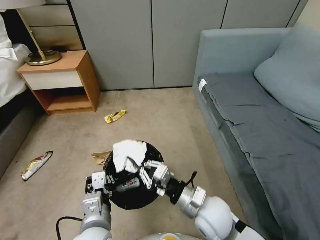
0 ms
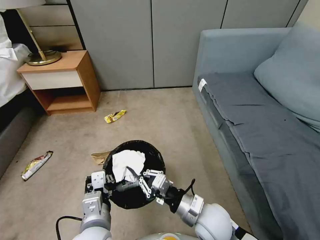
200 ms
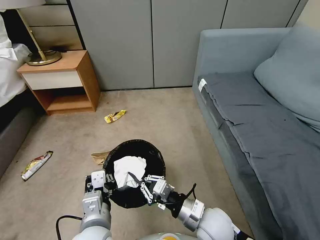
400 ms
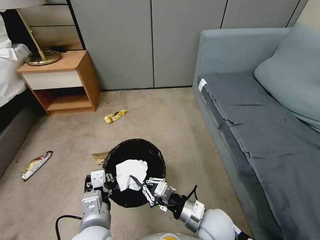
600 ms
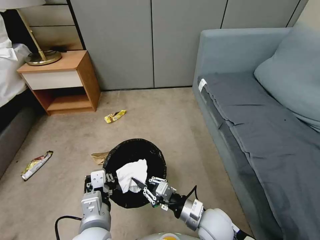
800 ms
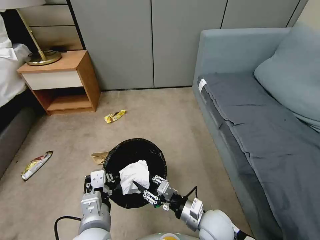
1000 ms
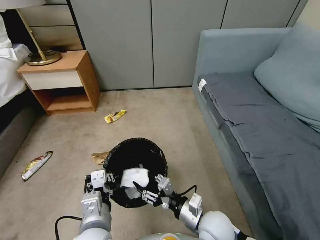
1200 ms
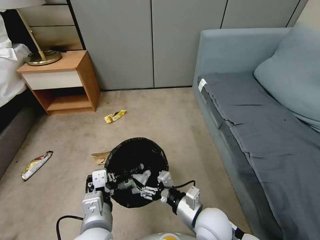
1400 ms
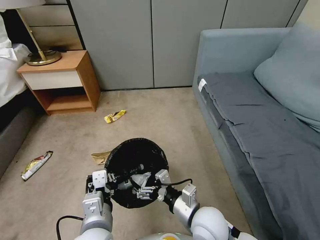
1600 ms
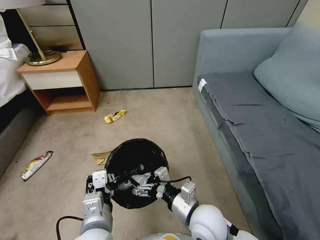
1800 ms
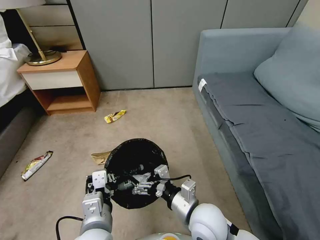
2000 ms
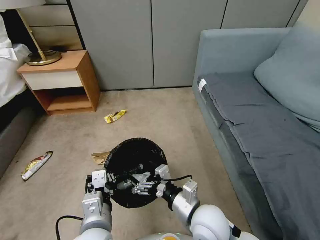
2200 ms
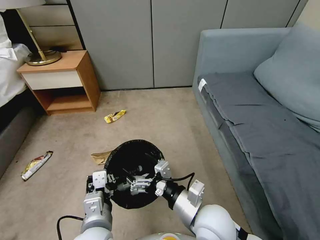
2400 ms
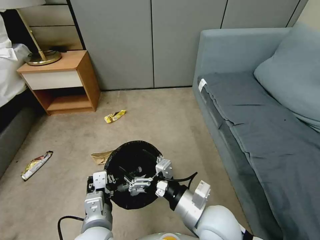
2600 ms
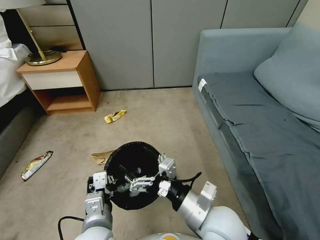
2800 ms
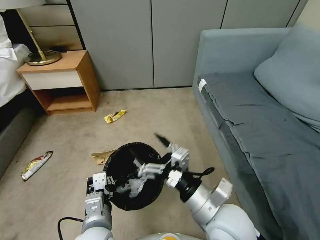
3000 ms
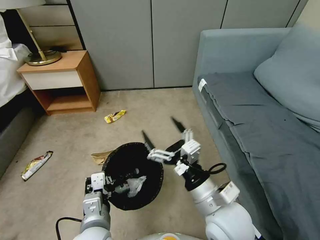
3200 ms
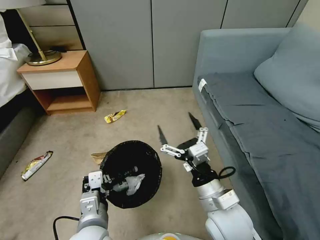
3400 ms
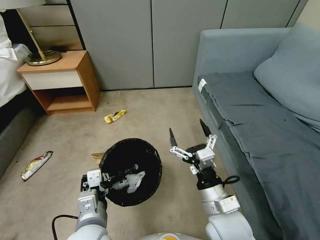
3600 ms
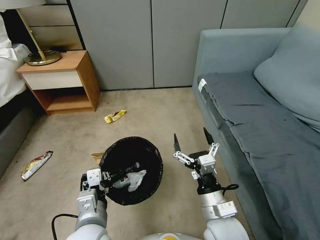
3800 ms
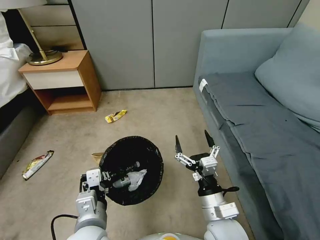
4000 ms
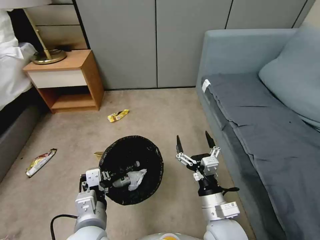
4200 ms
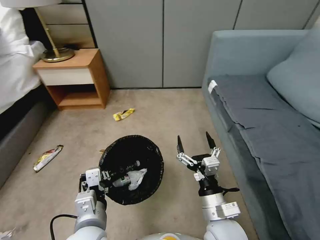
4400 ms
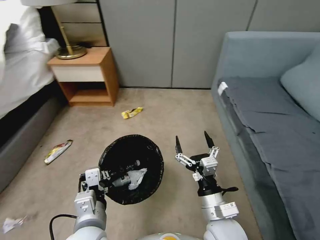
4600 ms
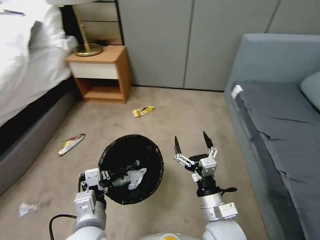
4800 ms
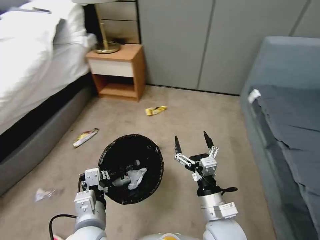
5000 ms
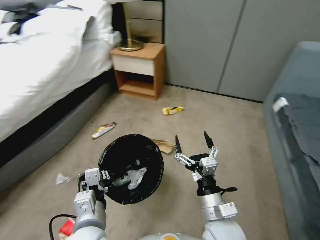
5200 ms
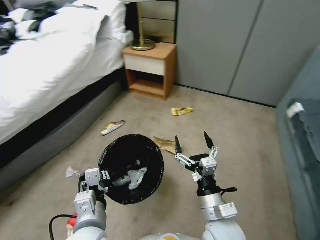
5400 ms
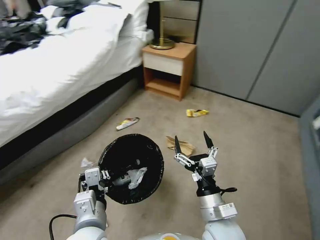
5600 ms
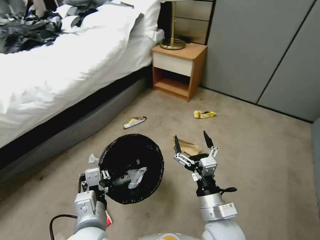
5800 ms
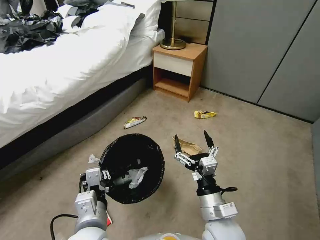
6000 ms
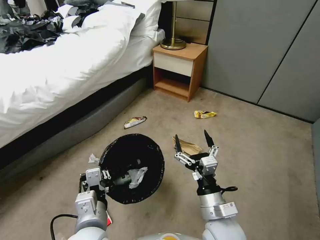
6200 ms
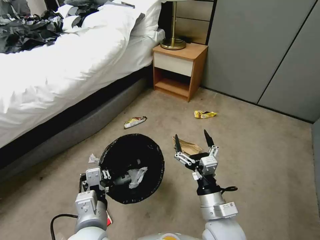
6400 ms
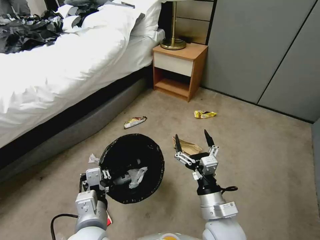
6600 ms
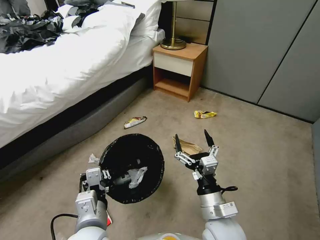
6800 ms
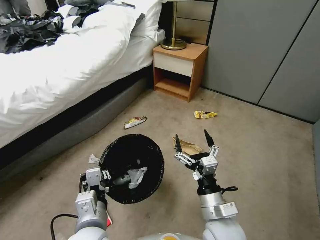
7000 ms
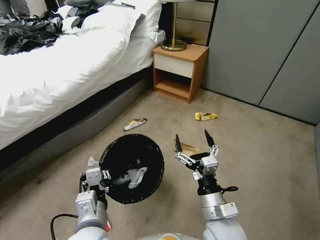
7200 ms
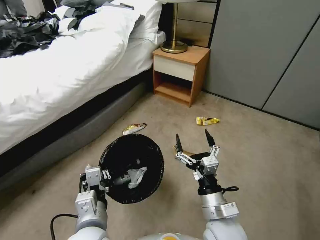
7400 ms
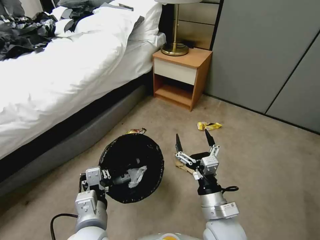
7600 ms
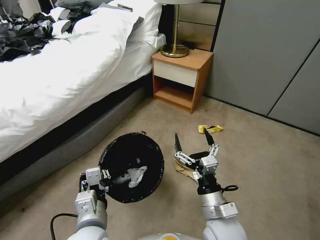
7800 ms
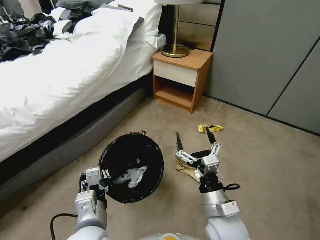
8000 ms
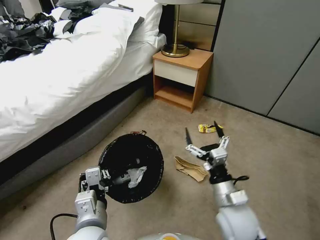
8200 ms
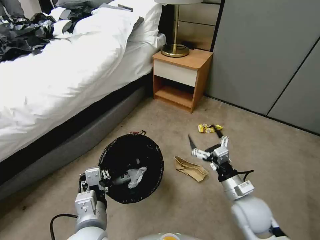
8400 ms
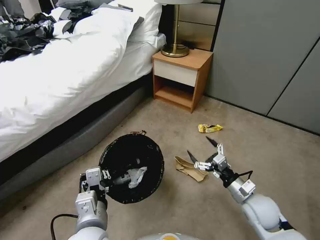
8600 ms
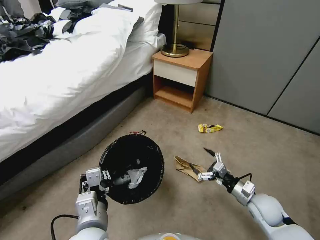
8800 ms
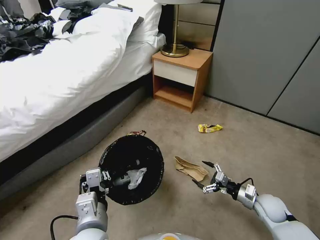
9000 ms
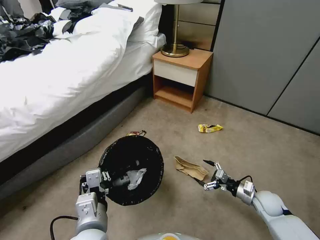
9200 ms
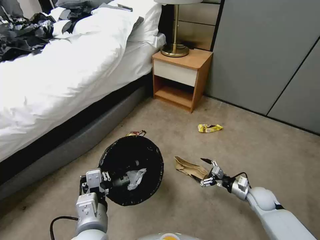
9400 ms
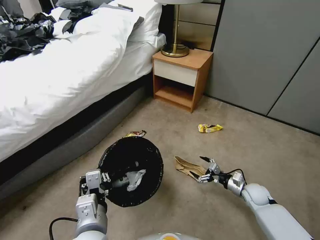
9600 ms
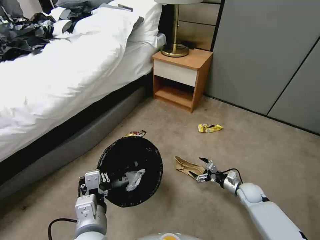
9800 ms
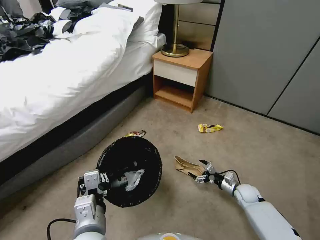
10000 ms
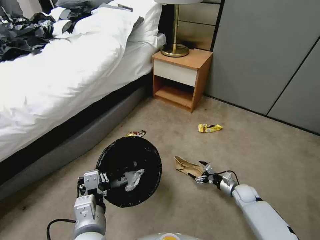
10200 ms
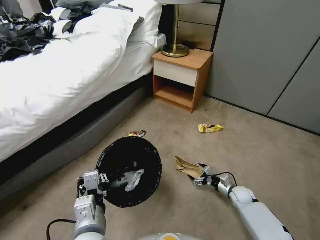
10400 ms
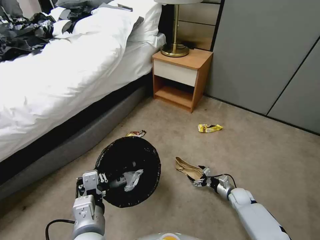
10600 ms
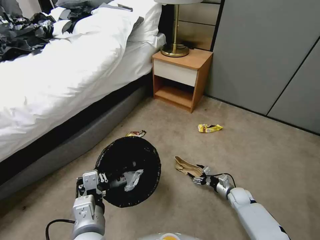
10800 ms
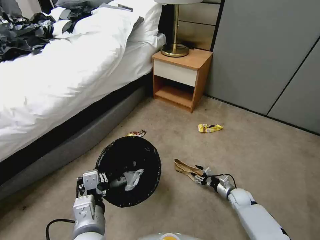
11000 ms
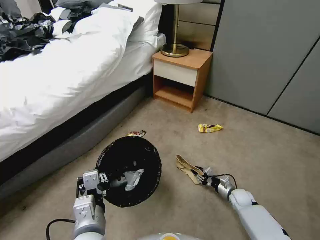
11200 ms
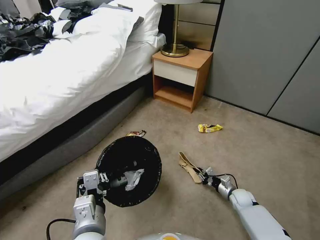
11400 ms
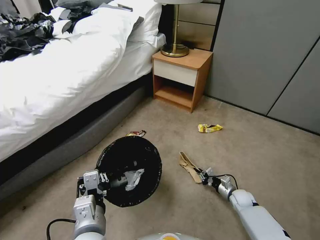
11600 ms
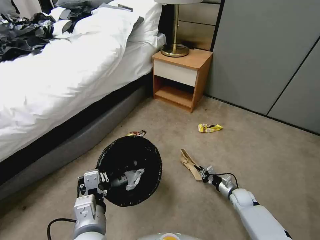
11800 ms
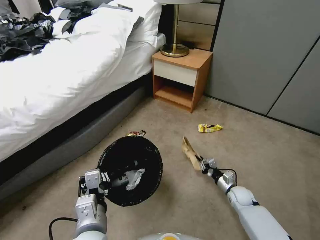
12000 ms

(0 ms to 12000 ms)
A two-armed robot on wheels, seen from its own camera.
Task of the whole recording: Pick up the trash bin, then pick up the garbage from the floor and place it into the trash bin.
0 ms - 1600 ms: The right gripper opens its fingers.
1600 ms - 3000 ms: The right gripper goes approximately 10 cm upward.
3000 ms - 4400 ms: The right gripper is displaced downward by about 10 cm.
7600 ms - 9000 ms: The right gripper is displaced to the right, downward and forward by some 30 cm.
9000 ms - 10400 ms: The right gripper goes approximately 15 cm downward and forward.
10400 ms - 12000 ms: The right gripper closes up.

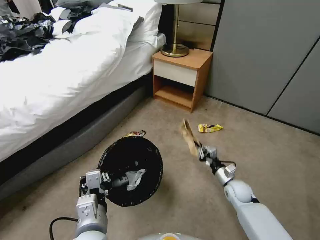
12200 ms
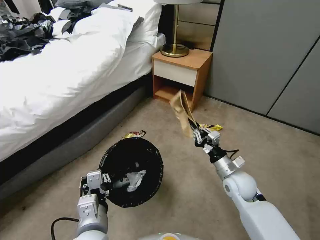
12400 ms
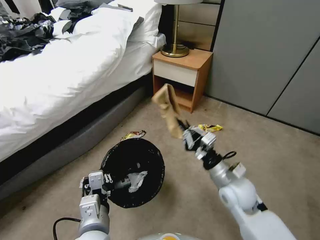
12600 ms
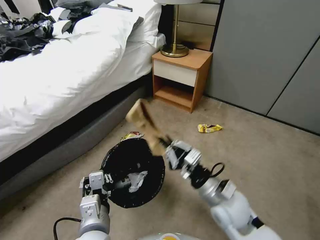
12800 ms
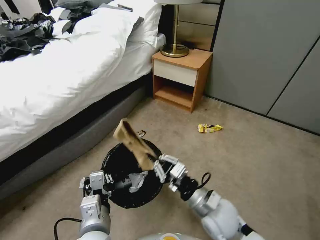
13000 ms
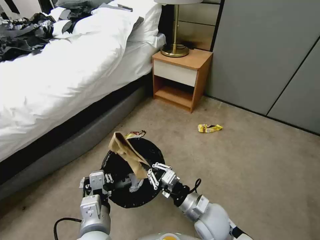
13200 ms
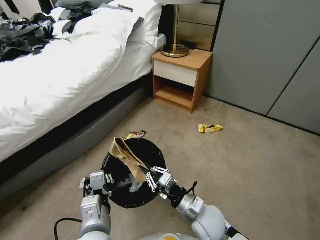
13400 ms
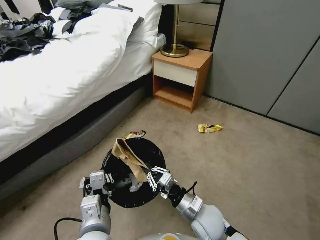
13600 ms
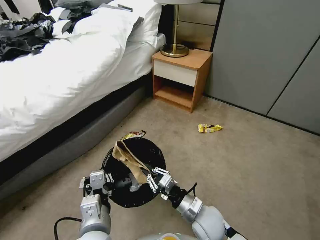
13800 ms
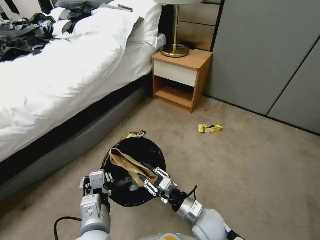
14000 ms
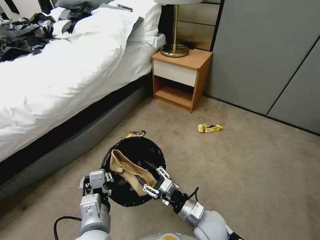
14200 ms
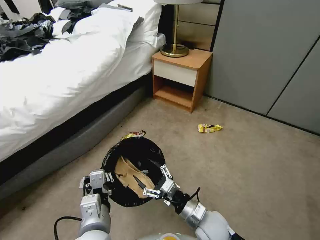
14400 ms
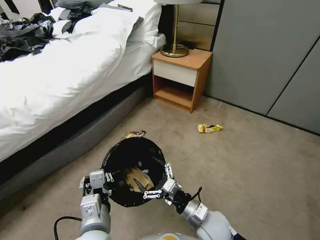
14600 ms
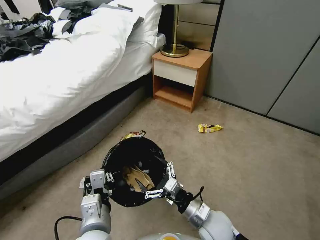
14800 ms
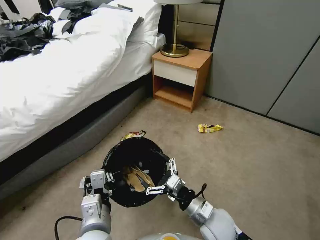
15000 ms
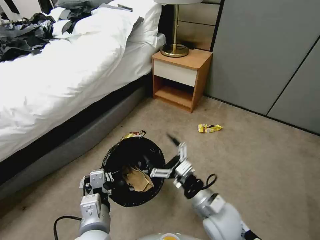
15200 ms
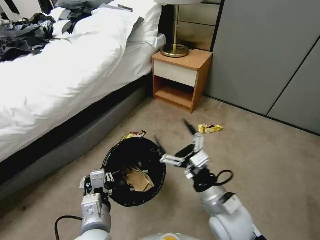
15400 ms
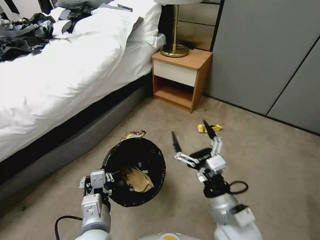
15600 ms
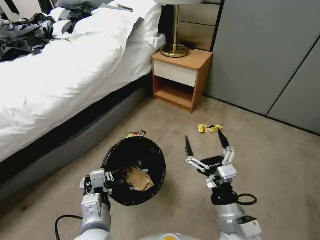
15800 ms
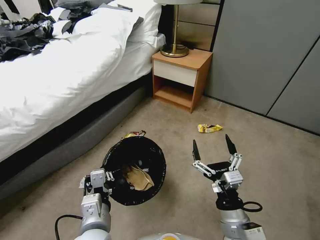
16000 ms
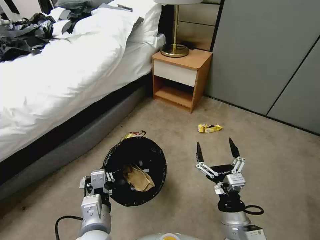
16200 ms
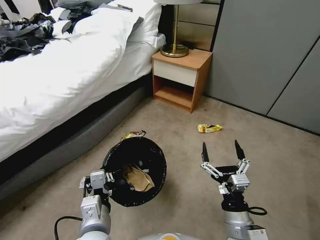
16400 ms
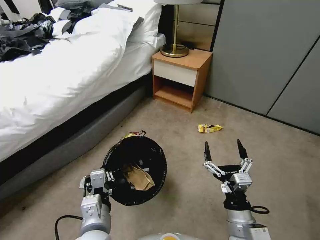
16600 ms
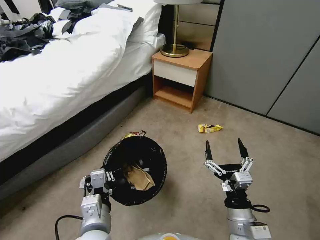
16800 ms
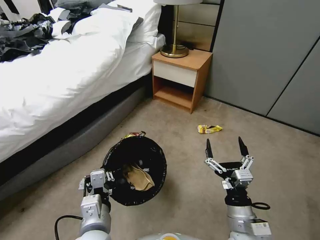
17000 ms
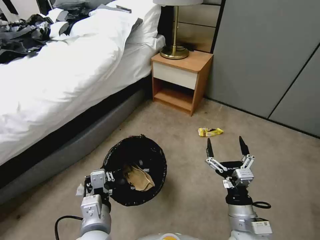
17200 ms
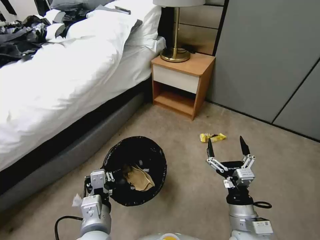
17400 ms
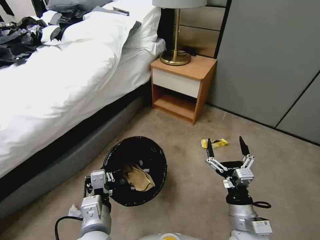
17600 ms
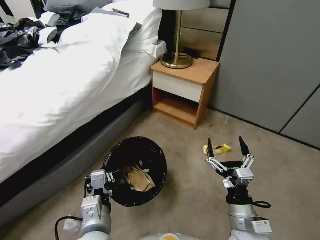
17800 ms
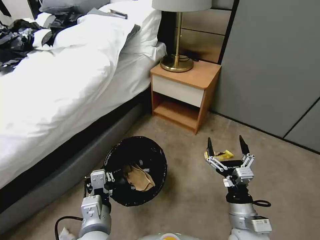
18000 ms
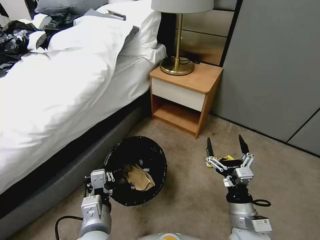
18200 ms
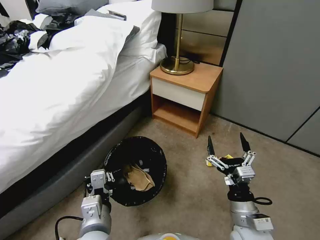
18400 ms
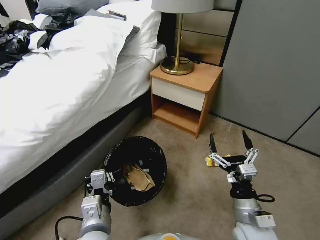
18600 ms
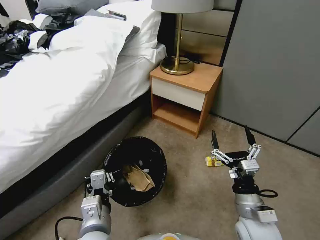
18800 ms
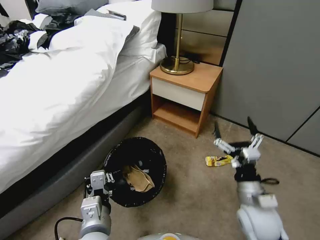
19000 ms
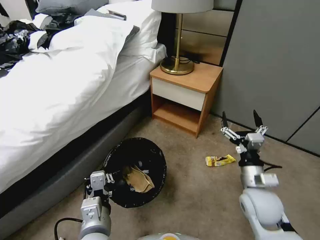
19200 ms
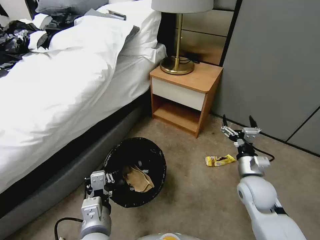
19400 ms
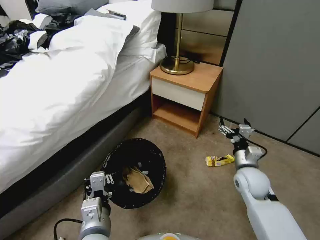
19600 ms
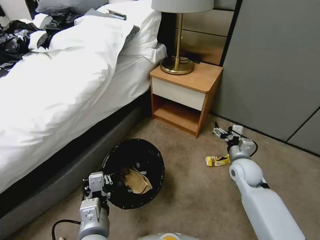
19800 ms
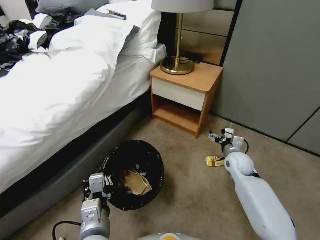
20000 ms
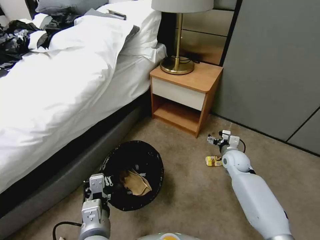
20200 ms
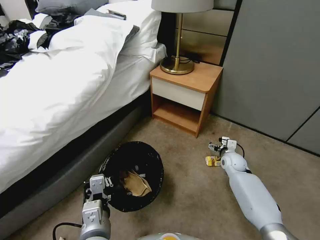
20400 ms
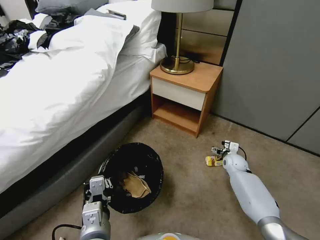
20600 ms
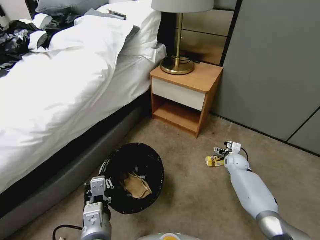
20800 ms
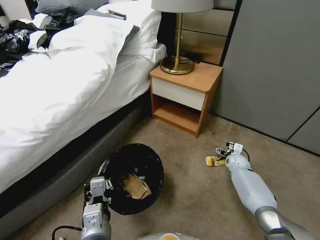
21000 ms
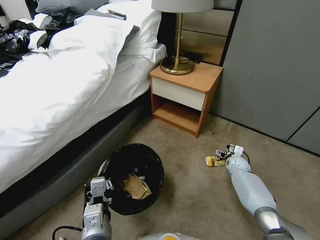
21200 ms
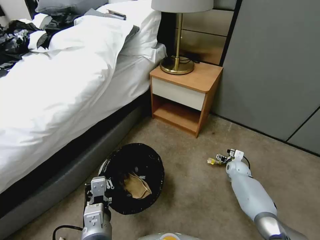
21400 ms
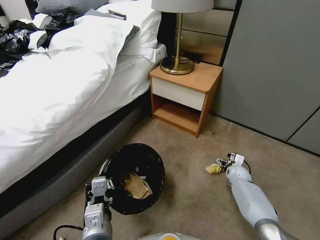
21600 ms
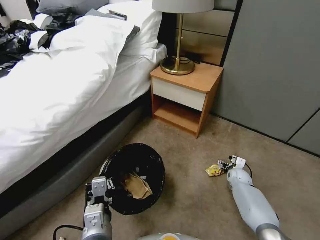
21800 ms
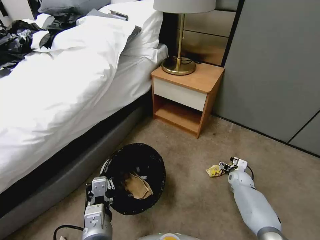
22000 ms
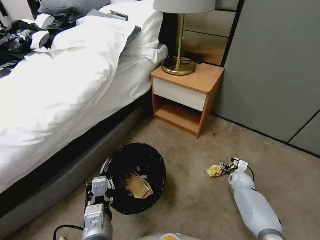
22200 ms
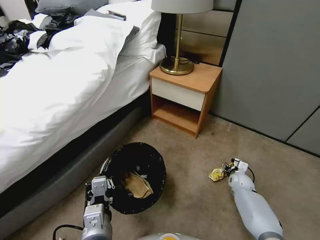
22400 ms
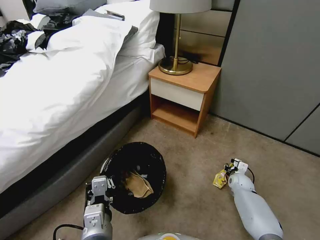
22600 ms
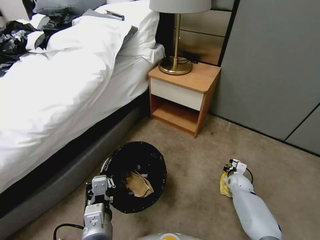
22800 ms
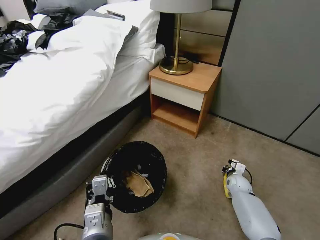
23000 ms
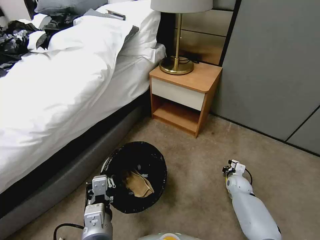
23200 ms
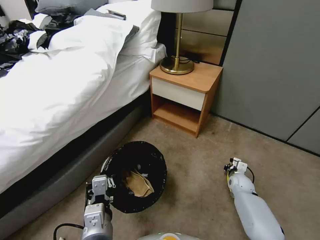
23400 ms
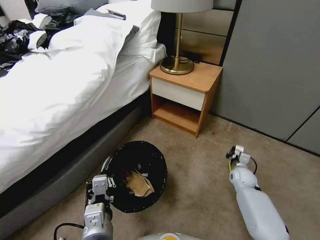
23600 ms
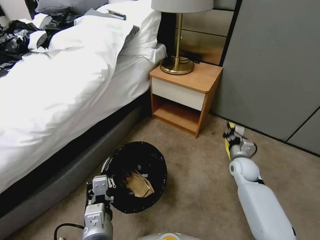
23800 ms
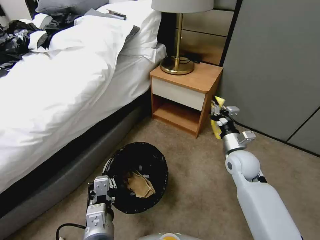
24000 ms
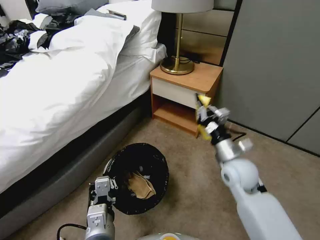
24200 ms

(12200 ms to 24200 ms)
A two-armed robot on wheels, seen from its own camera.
Task of the whole recording: Pick up the trash bin, then pick up the garbage from the floor and place it into the trash bin.
12200 ms - 13800 ms: The right gripper is displaced to the left, backward and upward by about 25 cm.
13800 ms - 15200 ms: The right gripper goes about 5 cm upward, and opens its fingers.
15200 ms - 16600 ms: The right gripper moves backward and to the right, about 10 cm.
18200 ms - 19800 ms: The right gripper travels forward by about 20 cm.
19800 ms - 21200 ms: The right gripper shifts approximately 20 cm downward, forward and to the right.
21200 ms - 22600 ms: The right gripper moves backward, about 10 cm, and closes its fingers.
22600 ms - 24200 ms: The right gripper heads upward and to the left, covering approximately 30 cm, and closes up.
